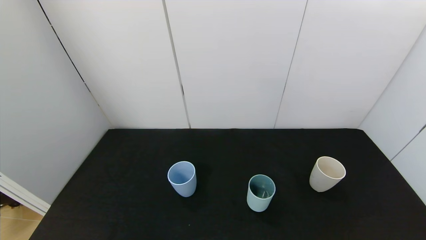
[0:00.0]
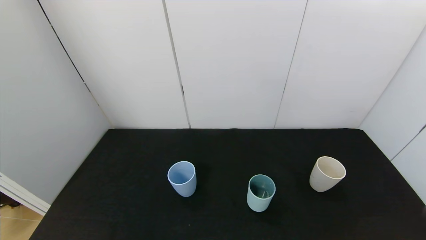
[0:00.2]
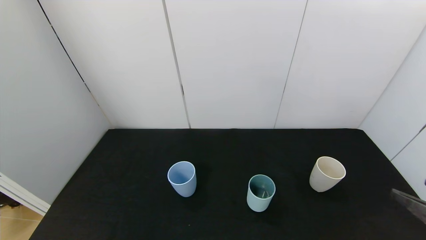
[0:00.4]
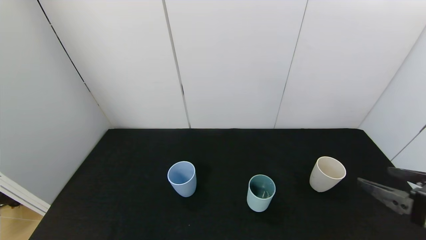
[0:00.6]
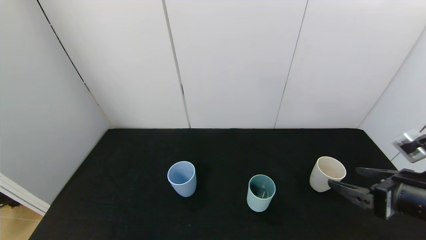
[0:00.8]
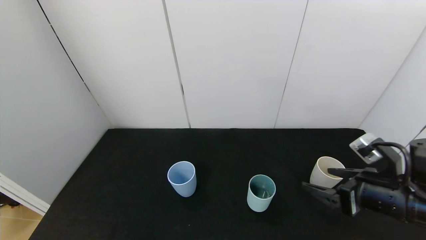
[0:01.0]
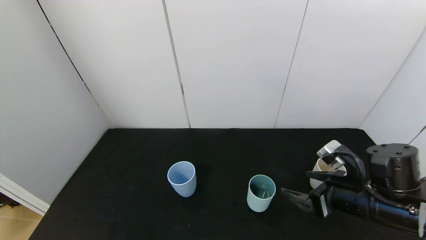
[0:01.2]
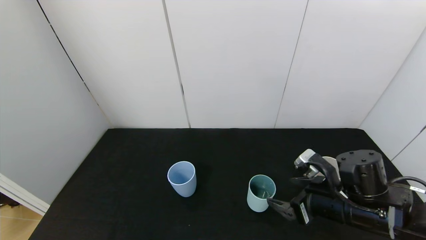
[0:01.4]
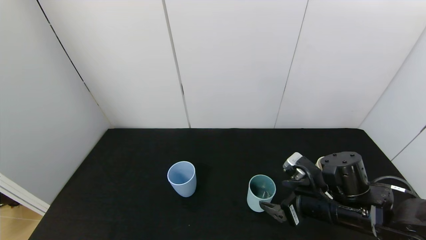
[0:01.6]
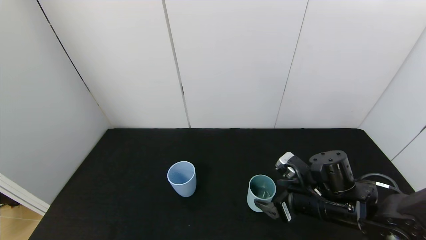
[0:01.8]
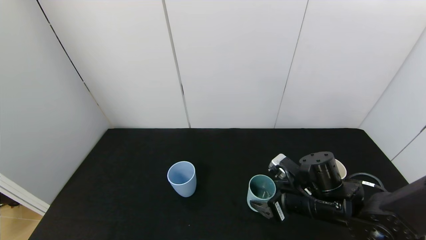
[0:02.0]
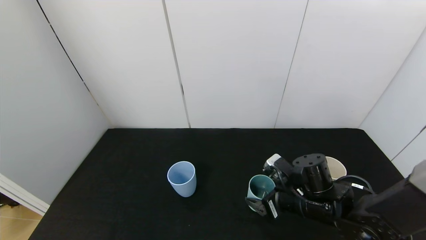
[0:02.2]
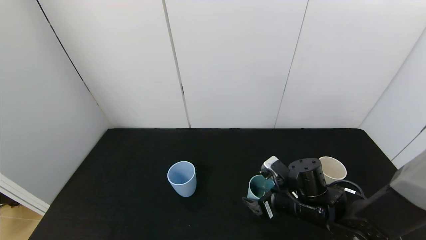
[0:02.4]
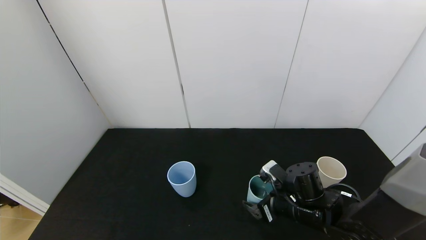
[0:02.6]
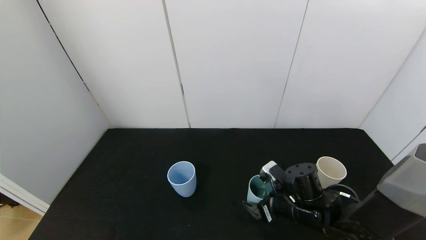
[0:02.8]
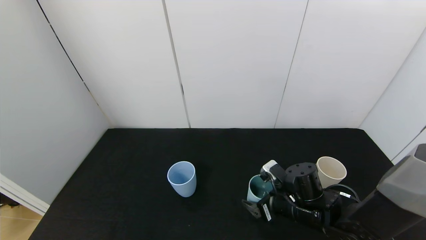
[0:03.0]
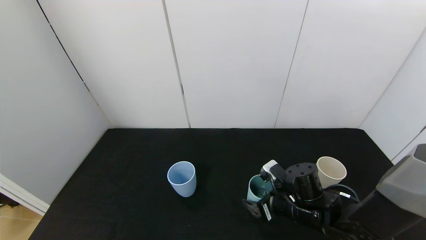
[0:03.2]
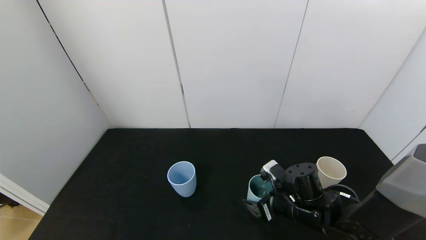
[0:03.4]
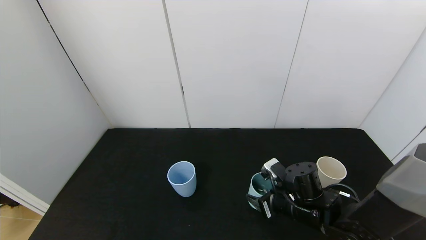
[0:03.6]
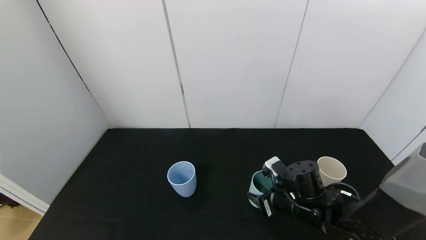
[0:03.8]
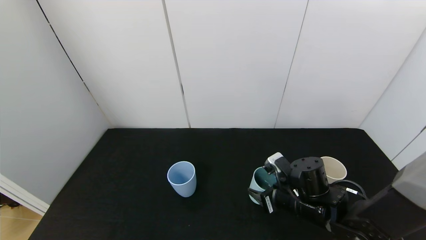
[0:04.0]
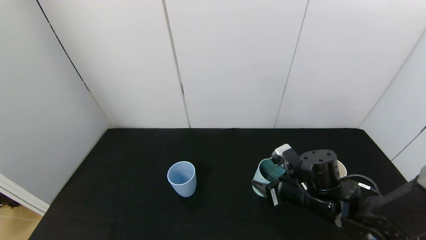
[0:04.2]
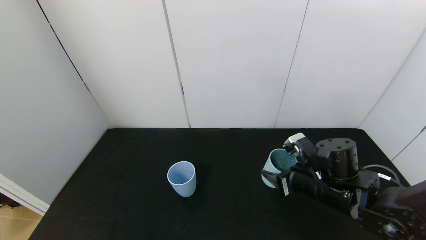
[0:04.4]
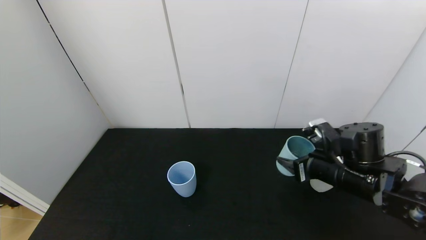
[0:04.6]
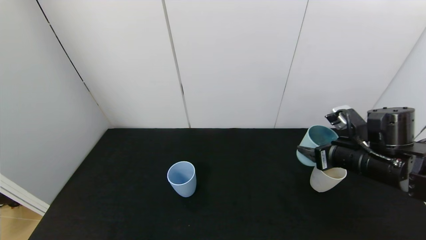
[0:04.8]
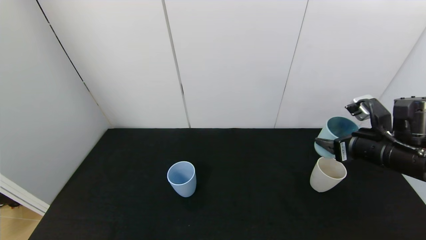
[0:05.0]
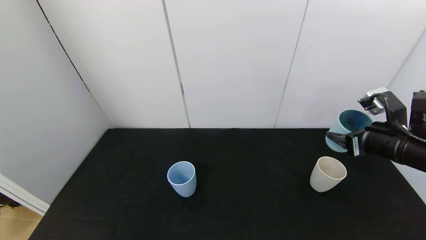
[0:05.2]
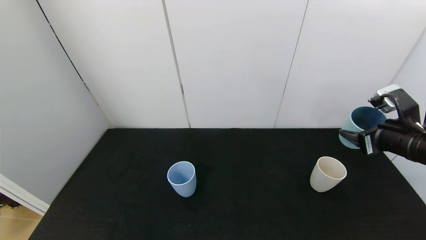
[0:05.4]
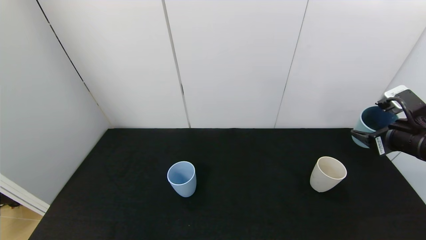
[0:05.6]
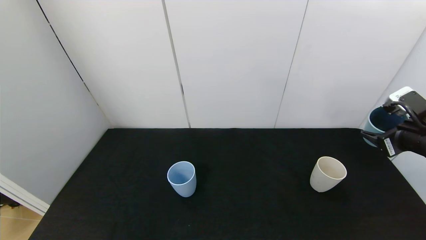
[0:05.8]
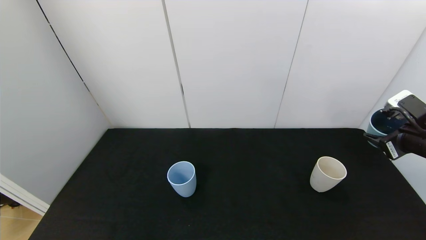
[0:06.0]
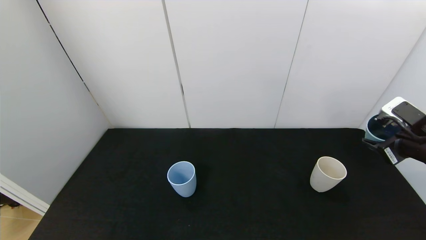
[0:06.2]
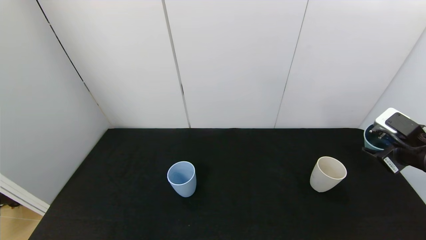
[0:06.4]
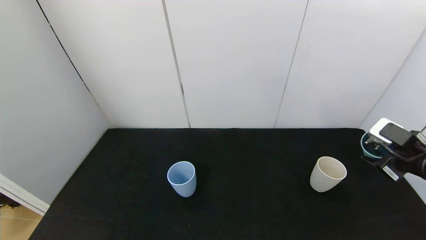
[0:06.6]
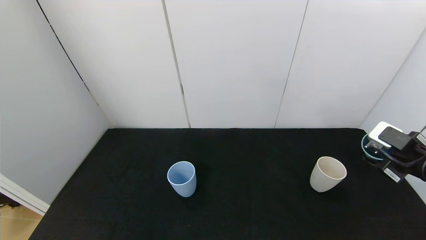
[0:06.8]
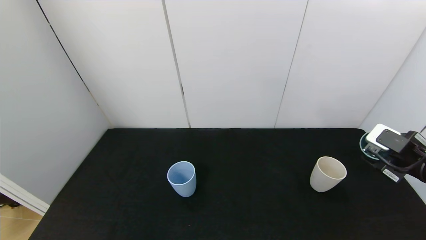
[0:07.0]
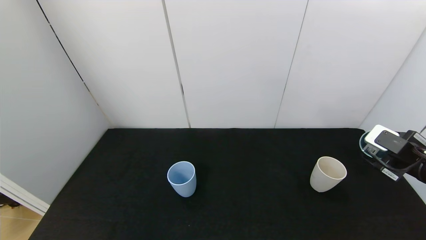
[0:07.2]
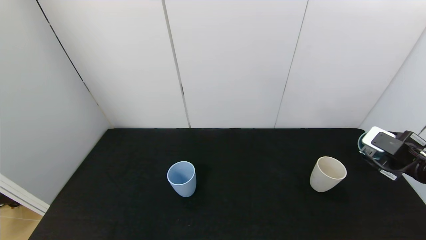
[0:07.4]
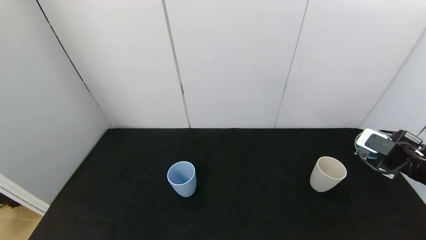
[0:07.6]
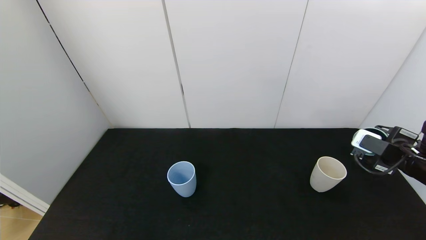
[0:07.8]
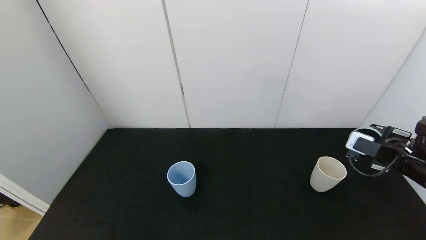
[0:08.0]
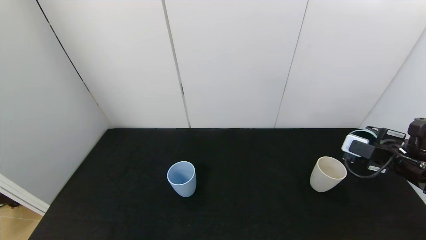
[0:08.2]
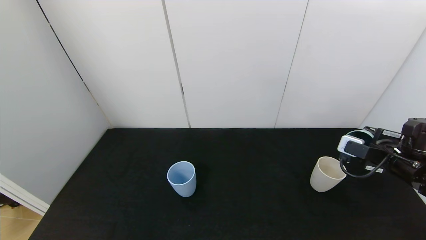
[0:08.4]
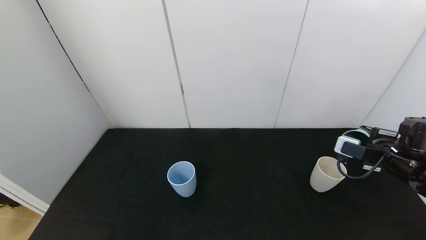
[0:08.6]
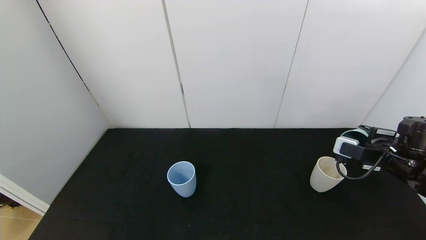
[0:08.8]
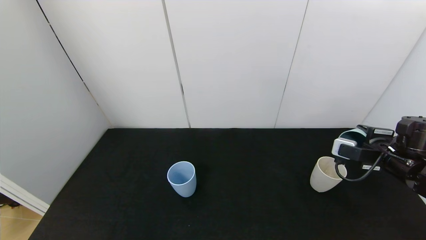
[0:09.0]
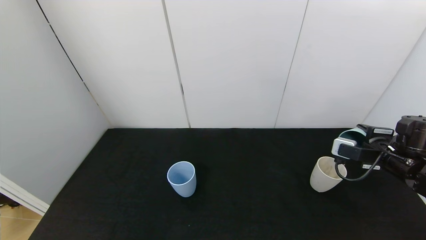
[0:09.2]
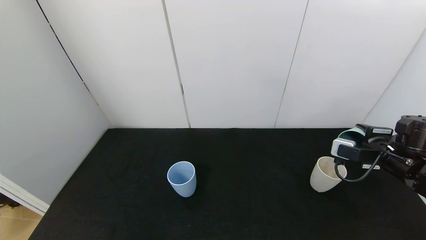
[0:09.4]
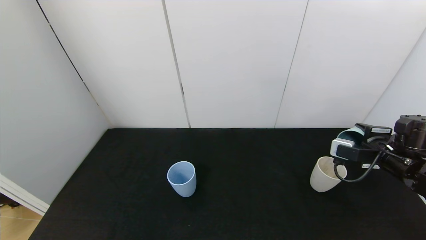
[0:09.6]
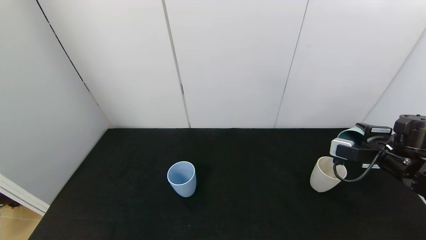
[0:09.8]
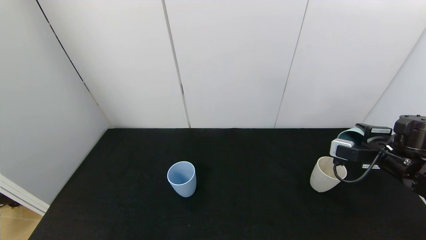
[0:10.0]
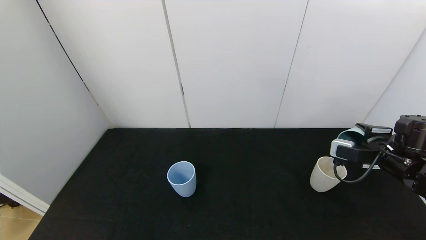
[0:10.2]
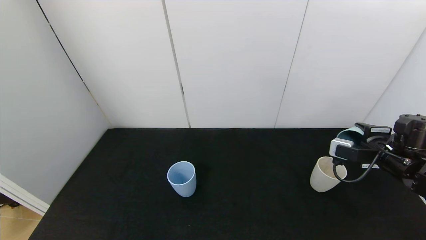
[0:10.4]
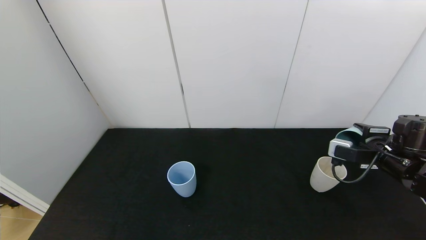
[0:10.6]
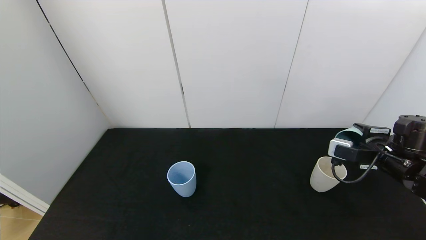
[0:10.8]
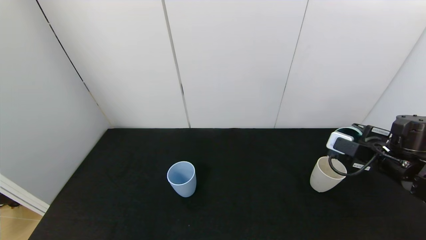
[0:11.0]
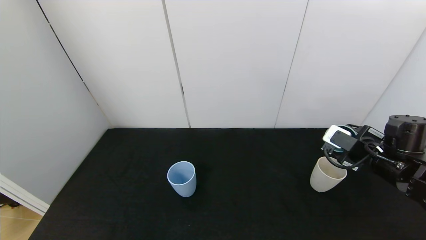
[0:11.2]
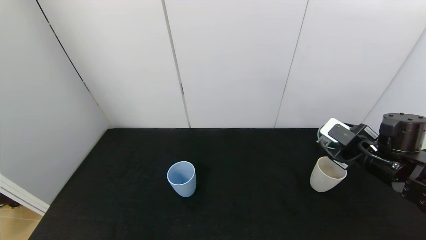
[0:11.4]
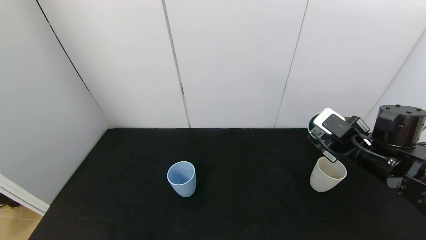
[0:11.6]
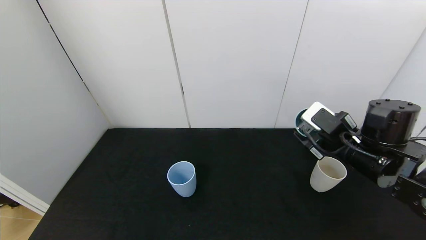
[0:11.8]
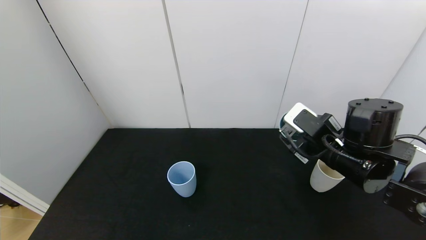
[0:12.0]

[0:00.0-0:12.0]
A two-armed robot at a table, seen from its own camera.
Task of the whole recording: use the gripper to pour the water into the other two cups on black table.
Step, 0:00.0 to 0:03.8: Grasp the green cup with the right gripper.
Step, 0:04.0 to 0:11.6: Pour water from green cup to white cup with the right gripper.
0:00.0 to 0:01.6: The right gripper is displaced forward and to the left by some 25 cm.
0:01.6 to 0:03.0: The right gripper travels downward by about 5 cm.
0:03.0 to 0:04.4: The right gripper shifts approximately 5 cm upward, and closes up.
0:04.4 to 0:06.0: The right gripper shifts roughly 20 cm to the right and upward.
0:06.0 to 0:07.6: The right gripper moves downward, roughly 5 cm.
0:09.0 to 0:10.4: Neither gripper changes place.
0:10.4 to 0:12.0: The right gripper goes some 15 cm to the left.

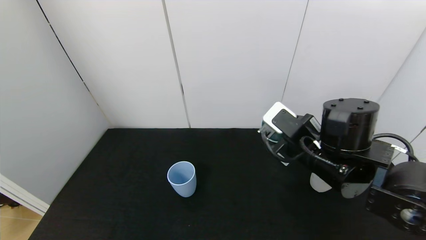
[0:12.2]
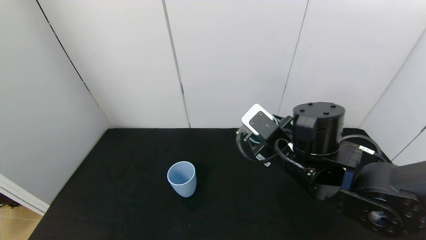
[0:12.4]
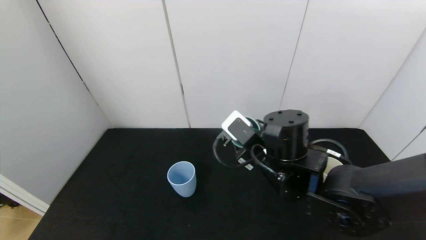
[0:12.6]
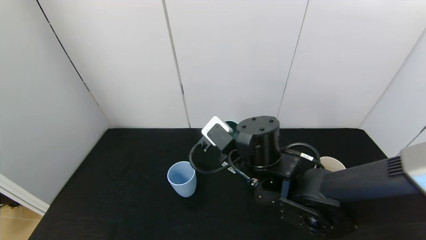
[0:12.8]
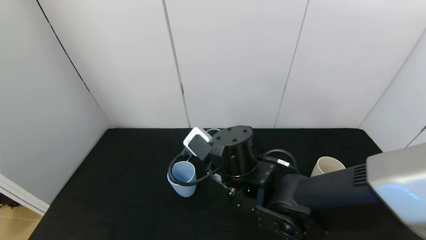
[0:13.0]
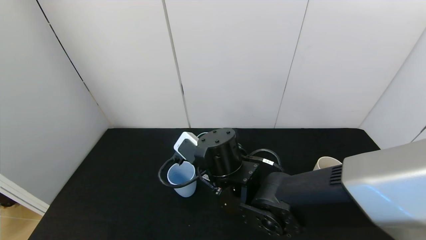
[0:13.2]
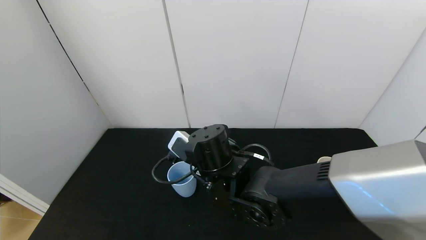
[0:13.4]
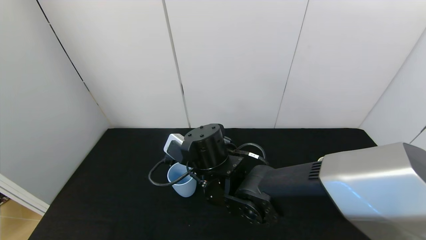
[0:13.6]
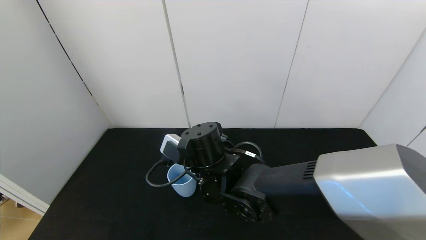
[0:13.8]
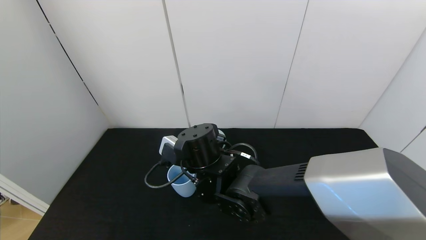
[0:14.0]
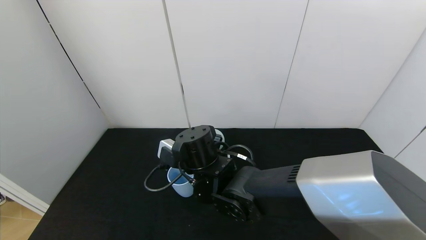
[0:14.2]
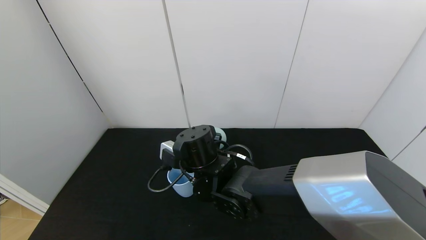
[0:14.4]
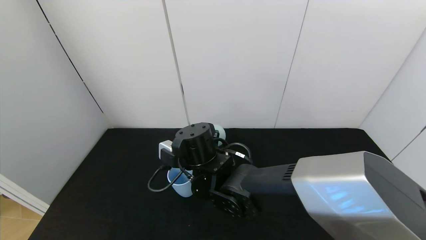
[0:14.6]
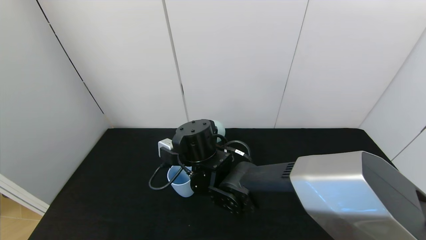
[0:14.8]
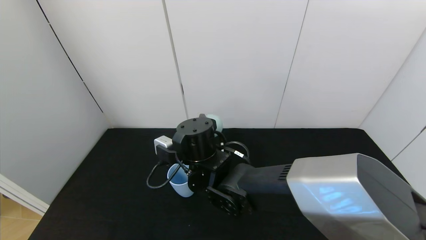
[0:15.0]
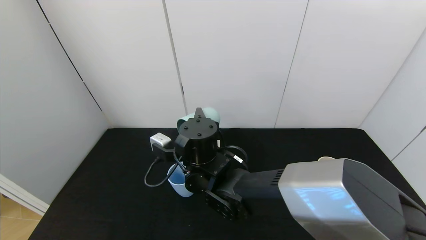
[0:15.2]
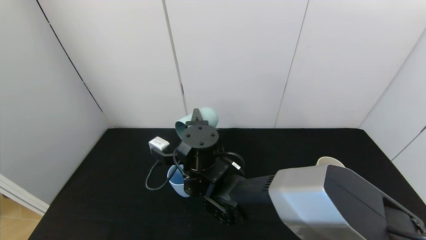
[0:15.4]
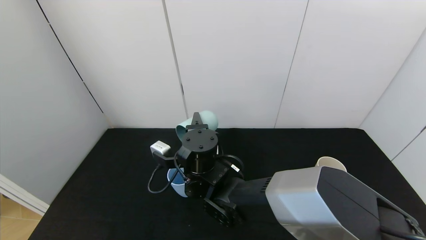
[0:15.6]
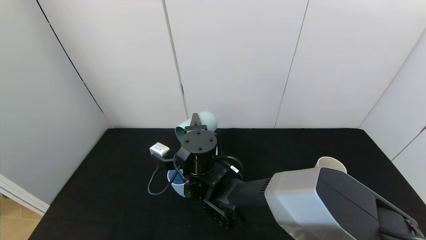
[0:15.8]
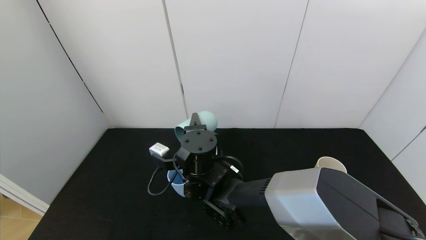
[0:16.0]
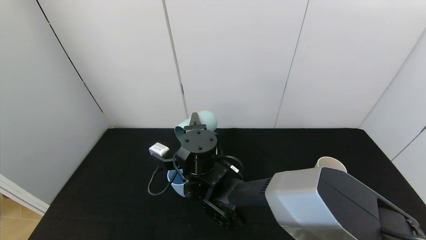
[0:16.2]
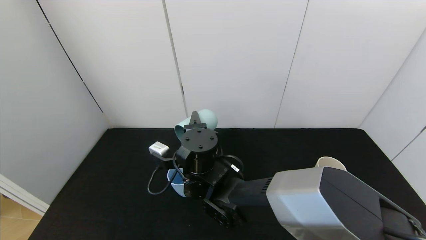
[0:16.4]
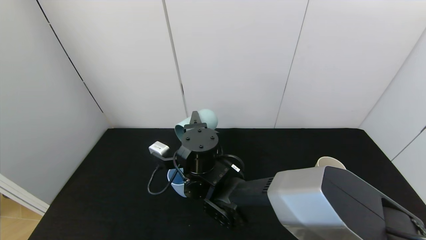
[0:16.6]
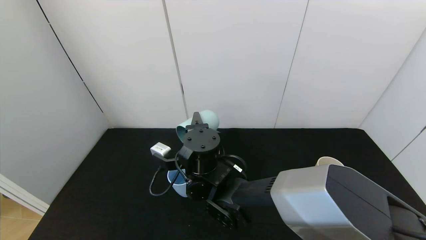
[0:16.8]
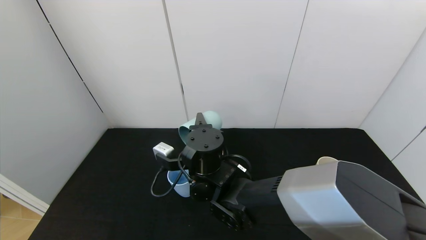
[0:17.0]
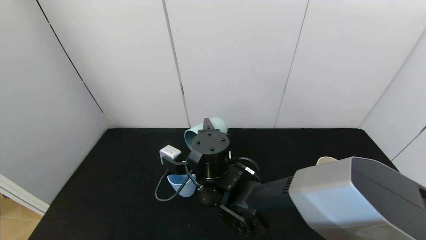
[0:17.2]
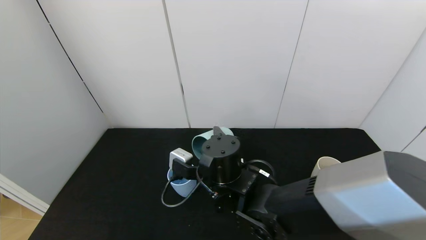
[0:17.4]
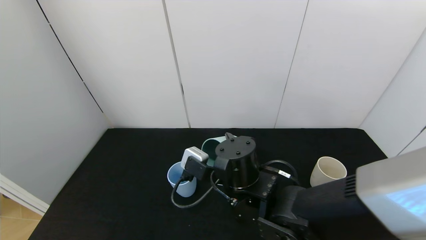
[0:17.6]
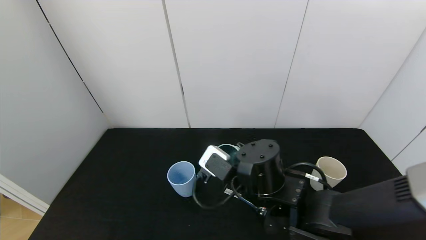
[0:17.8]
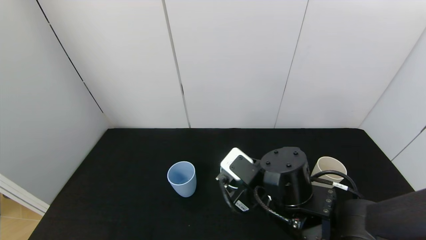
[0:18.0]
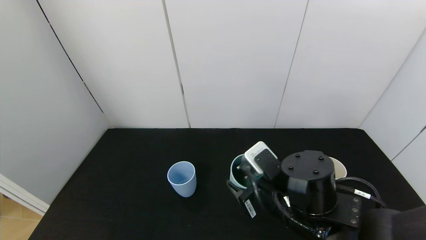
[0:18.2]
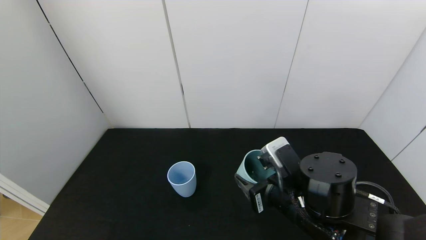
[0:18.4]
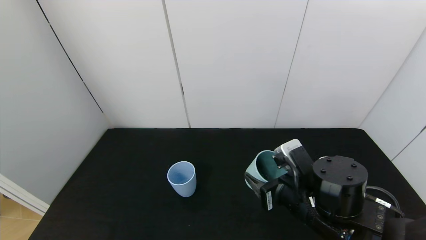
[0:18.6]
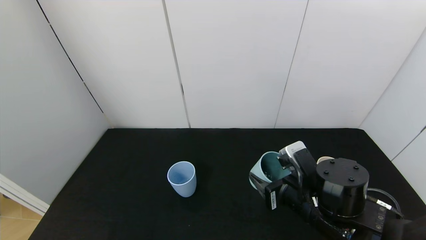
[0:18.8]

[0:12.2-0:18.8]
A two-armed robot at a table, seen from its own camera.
Task of the whole recording: use the gripper to pour the water into the other two cups on black table.
Step, 0:12.2 to 0:17.6: Pour water from green cup to blue cup with the right gripper.
0:12.2 to 0:13.8: The right gripper moves to the left, approximately 20 cm.
0:15.4 to 0:17.2: The grippers make only small movements.
0:17.2 to 0:18.8: The right gripper is displaced to the right by some 20 cm.
